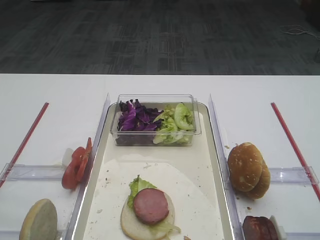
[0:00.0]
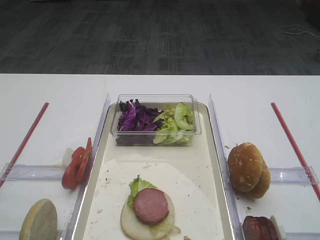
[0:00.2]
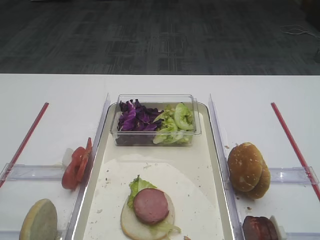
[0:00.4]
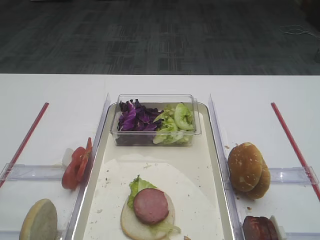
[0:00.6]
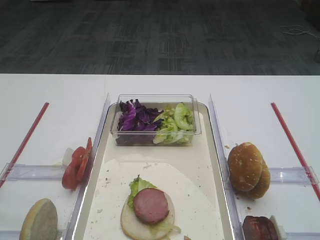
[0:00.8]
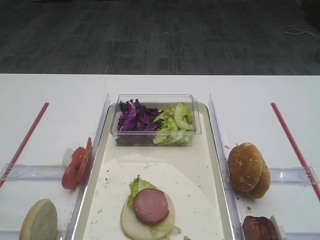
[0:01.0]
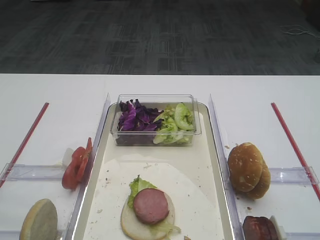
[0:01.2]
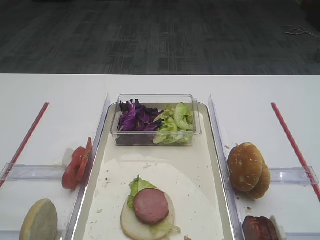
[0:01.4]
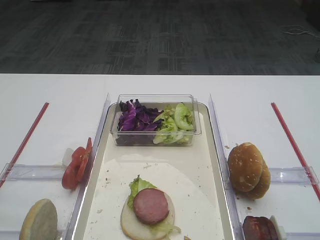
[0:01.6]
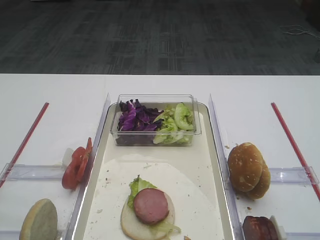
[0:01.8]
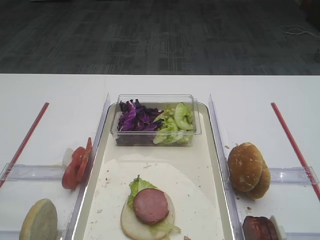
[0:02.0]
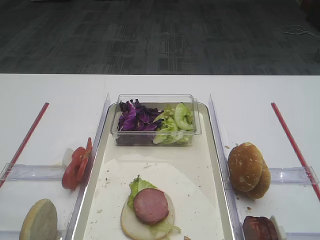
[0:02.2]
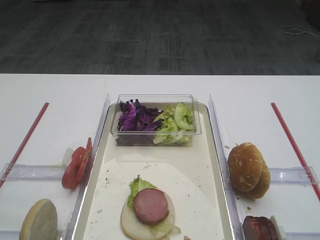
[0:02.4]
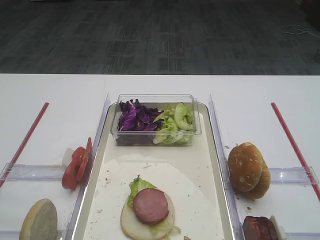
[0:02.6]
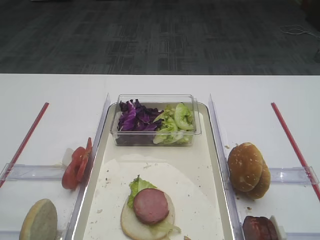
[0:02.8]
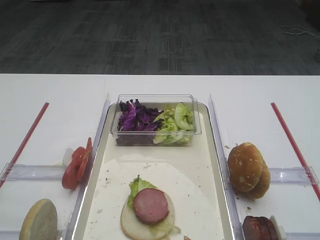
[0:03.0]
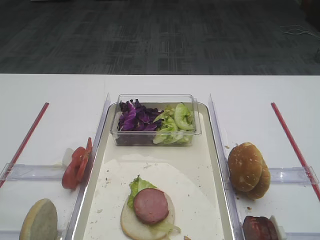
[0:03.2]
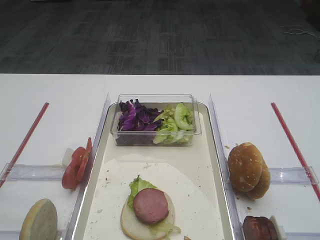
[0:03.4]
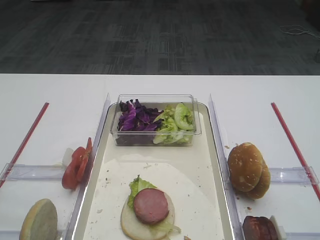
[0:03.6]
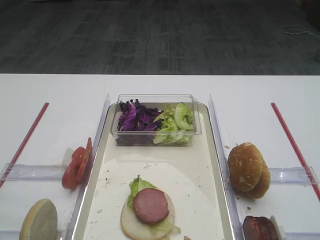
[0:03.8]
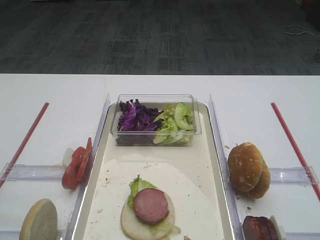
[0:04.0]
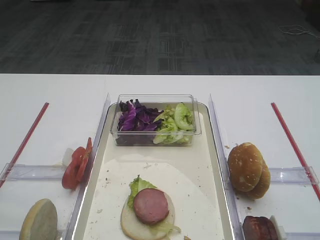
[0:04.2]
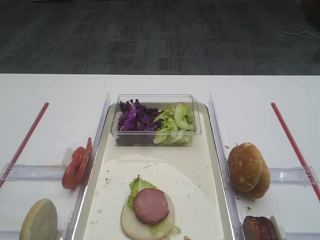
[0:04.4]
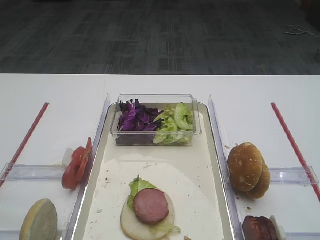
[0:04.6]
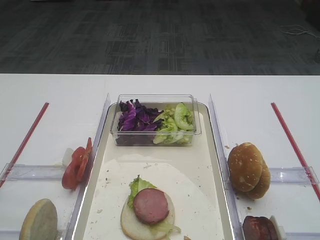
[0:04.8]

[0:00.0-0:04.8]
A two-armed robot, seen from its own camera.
0:01.6 to 0:04.8: Both grippers stay put.
